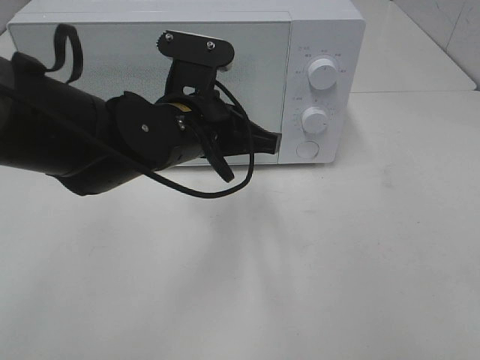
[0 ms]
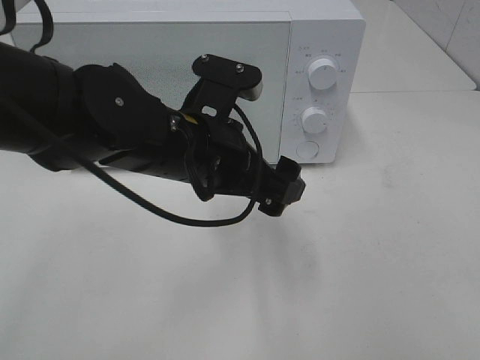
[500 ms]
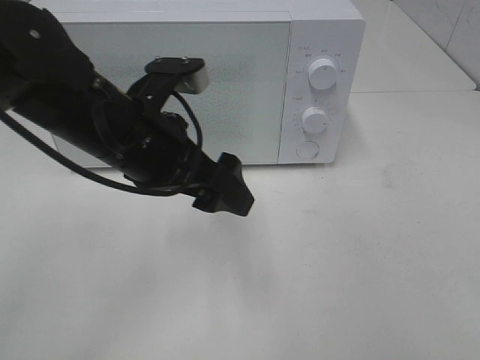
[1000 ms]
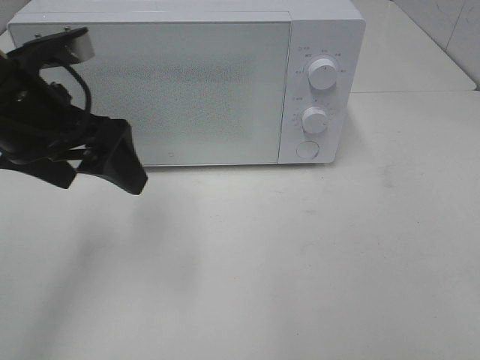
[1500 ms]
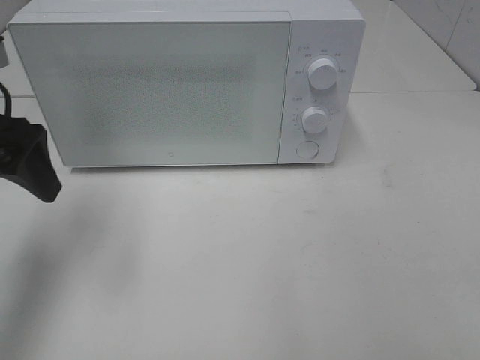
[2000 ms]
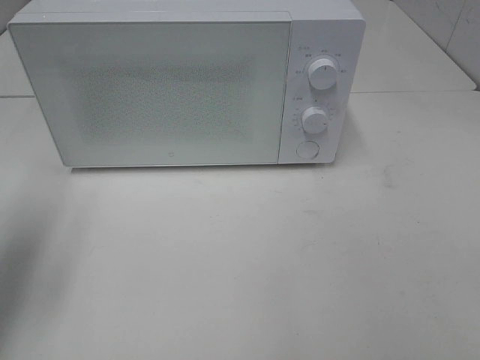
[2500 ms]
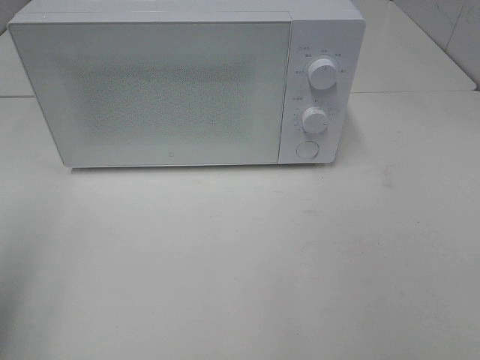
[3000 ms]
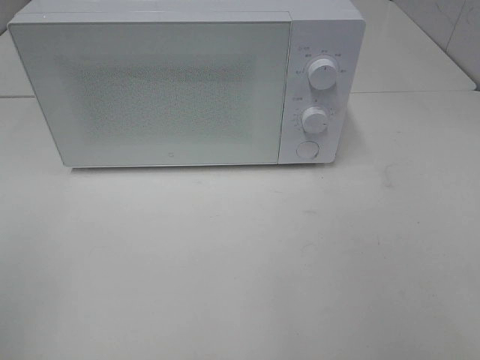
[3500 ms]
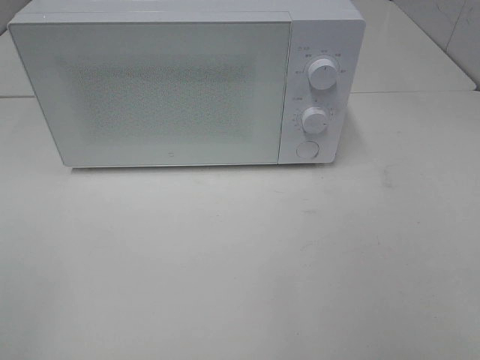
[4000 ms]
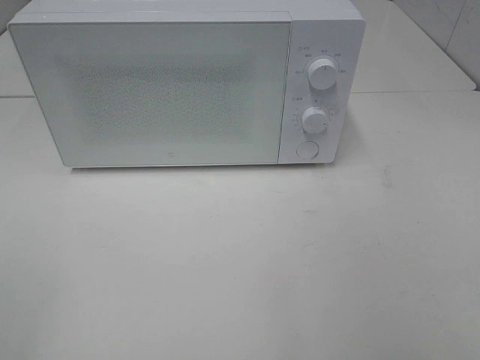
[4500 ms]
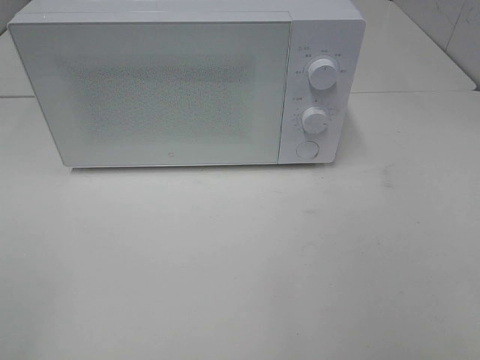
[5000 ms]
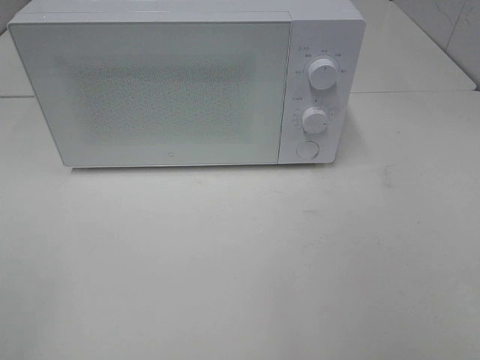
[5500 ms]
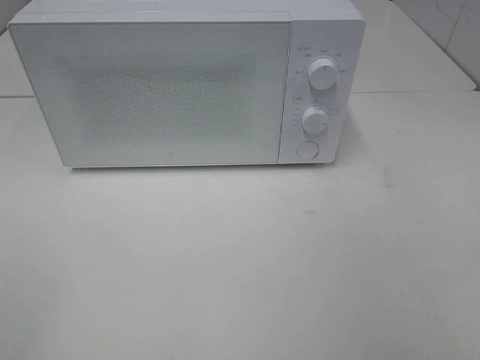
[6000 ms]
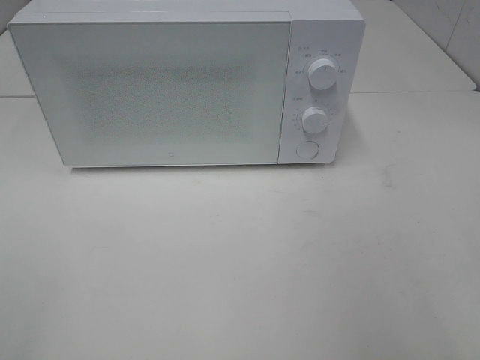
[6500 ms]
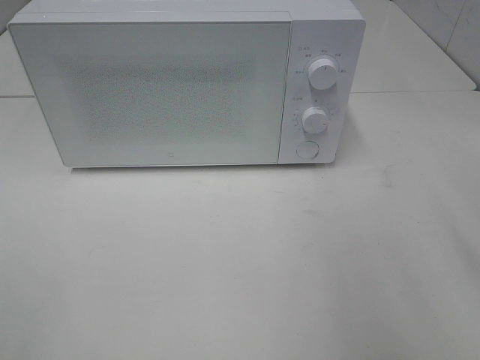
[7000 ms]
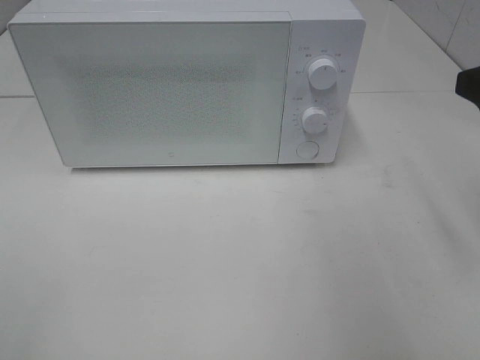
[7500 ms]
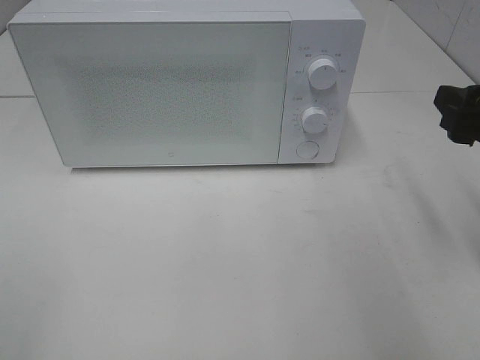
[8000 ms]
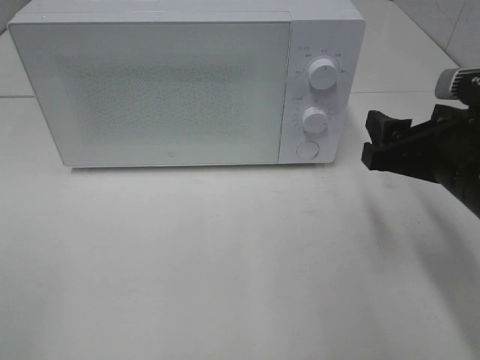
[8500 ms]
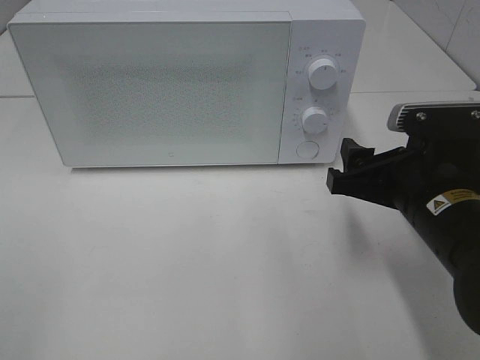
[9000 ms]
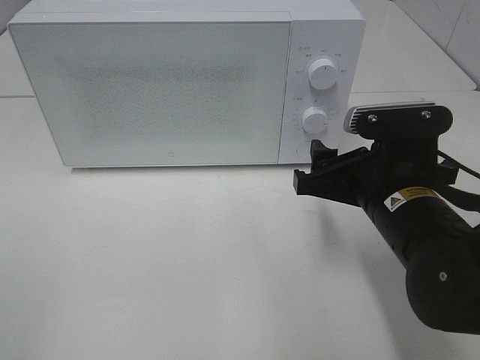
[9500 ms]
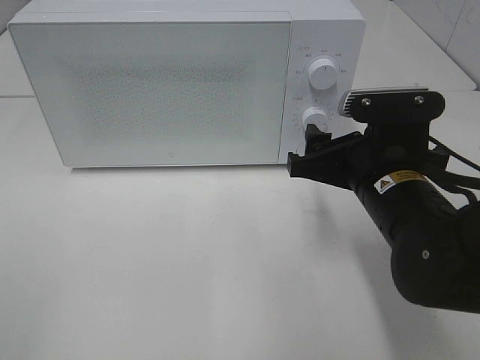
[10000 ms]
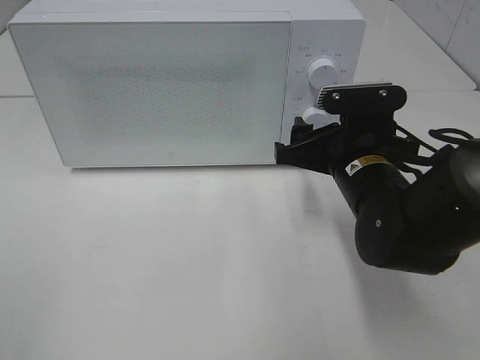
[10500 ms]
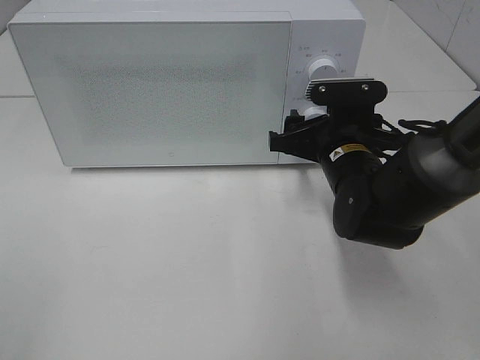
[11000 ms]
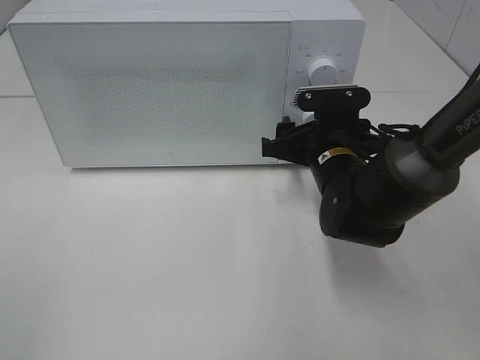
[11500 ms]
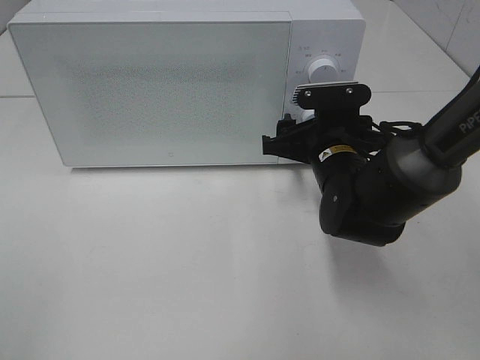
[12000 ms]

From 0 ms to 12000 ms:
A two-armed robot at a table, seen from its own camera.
Task of the whole recording: Heat the burger.
From 0 ms to 2000 ms: The left gripper shifts about 20 cm to the left, and opens.
From 2000 ms to 4000 ms: The left gripper goes approximately 25 cm backward.
From 6000 ms to 8000 ms: The right gripper is displaced forward by some 20 cm.
From 8000 ms to 10000 ms: The right gripper moves to the left and downward, about 15 cm.
From 10000 ms to 12000 ms: The right gripper travels forward by some 10 cm.

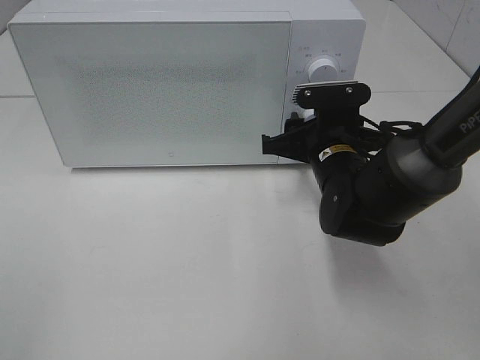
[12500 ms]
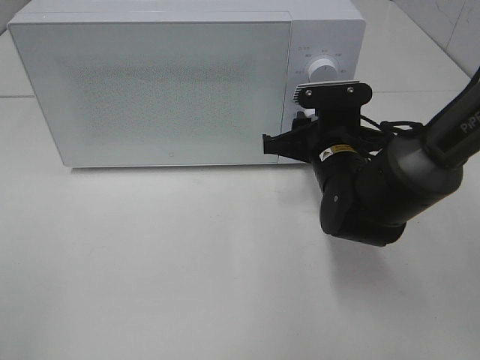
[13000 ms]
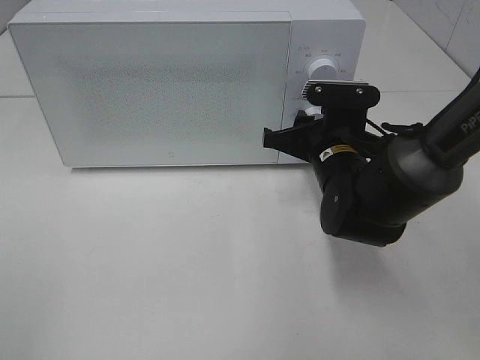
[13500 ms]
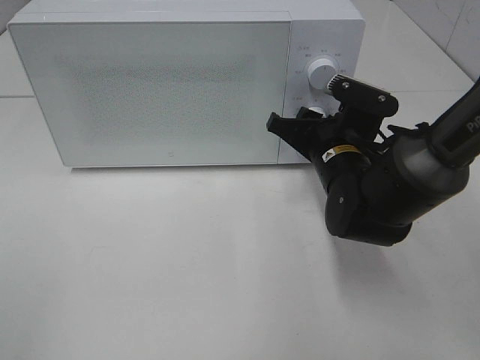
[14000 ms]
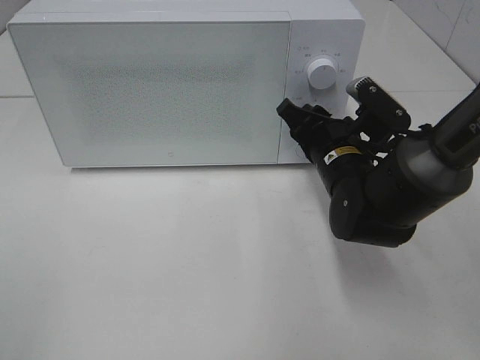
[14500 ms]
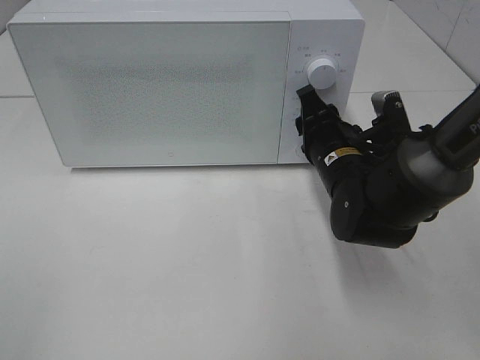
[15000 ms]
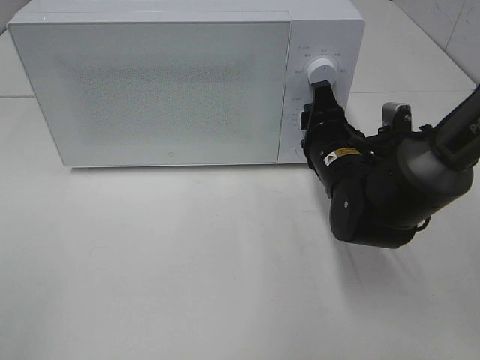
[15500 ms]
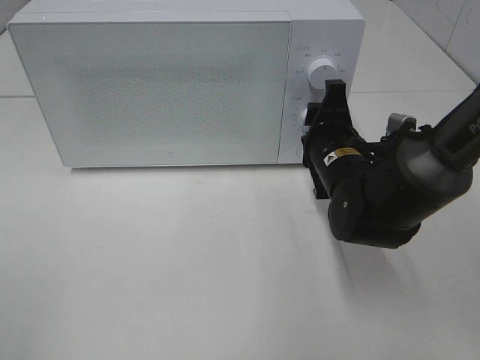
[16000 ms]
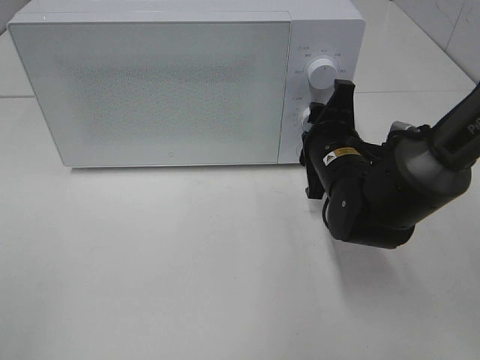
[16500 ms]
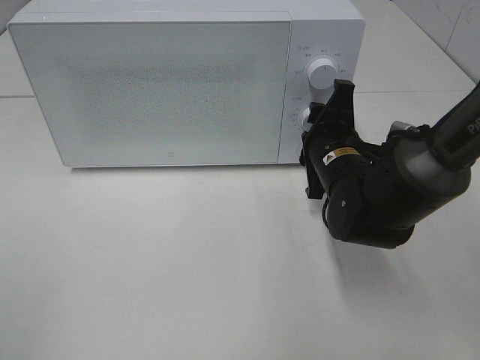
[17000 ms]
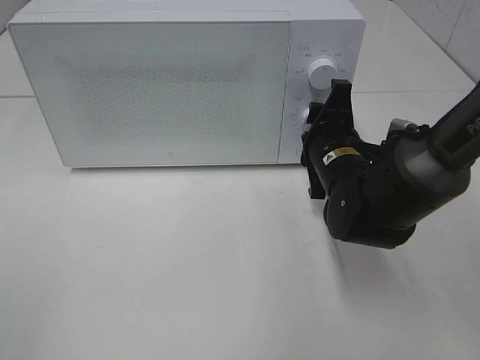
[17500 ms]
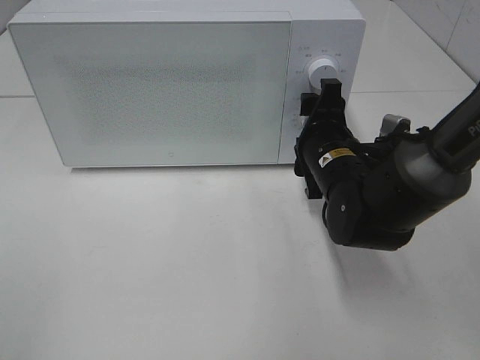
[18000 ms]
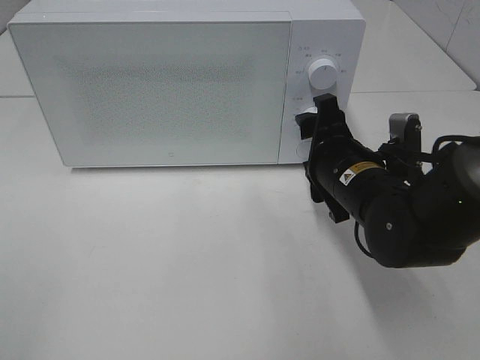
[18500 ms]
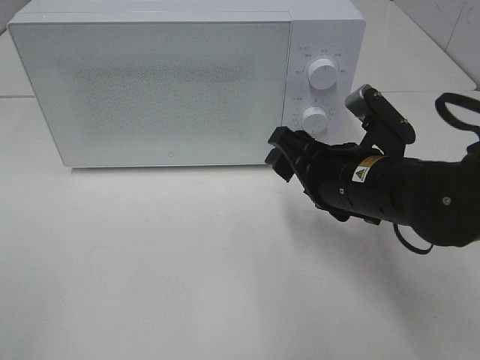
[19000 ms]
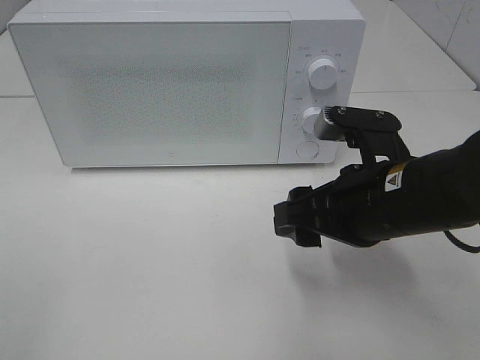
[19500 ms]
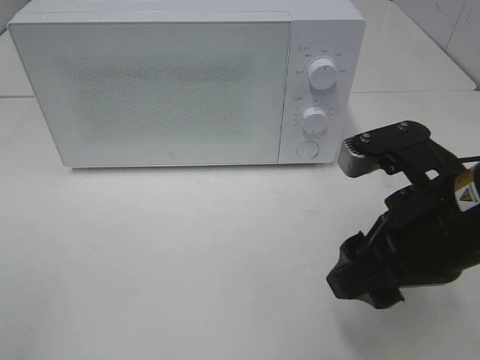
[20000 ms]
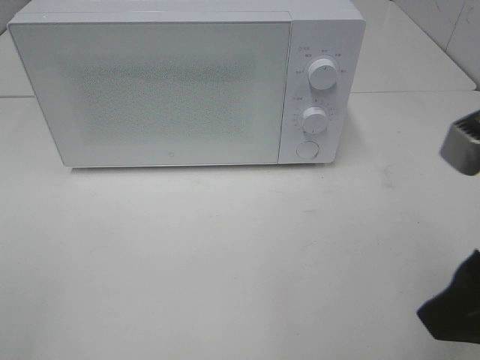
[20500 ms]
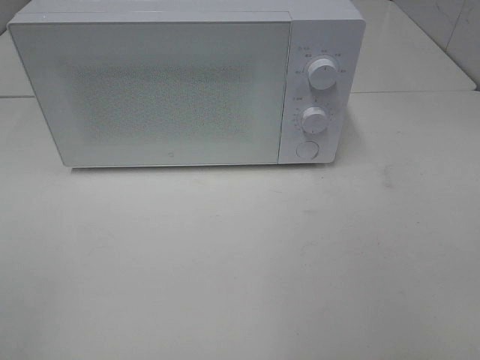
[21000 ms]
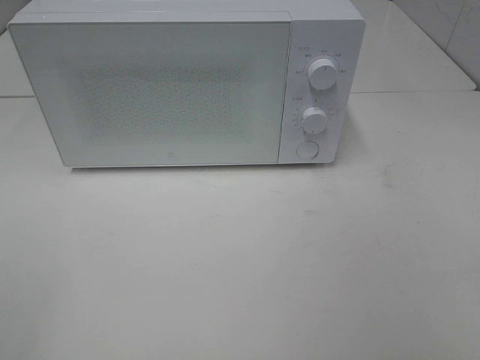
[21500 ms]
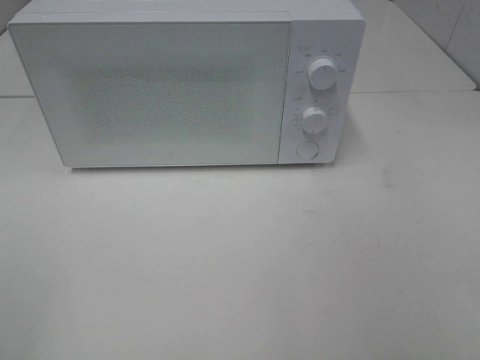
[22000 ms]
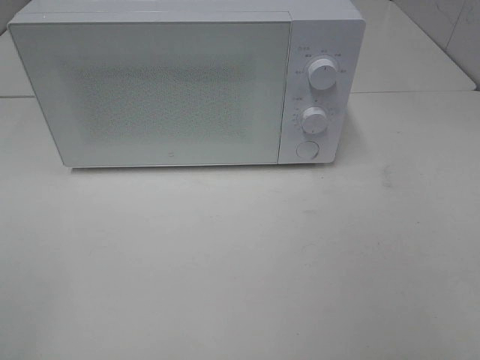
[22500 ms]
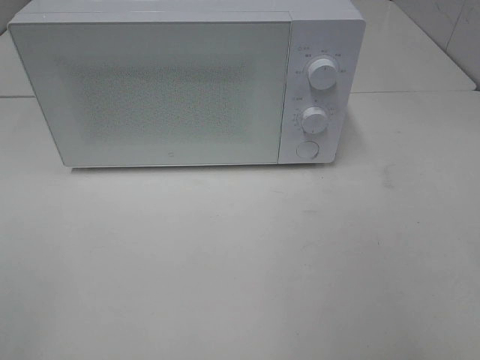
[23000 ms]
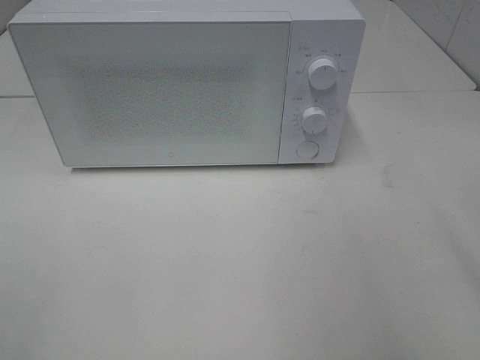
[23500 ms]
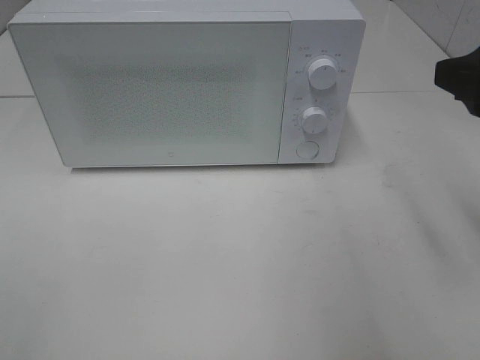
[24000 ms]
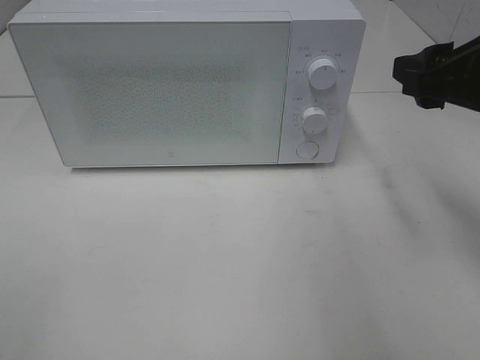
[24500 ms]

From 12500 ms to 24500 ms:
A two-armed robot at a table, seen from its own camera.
Task of the whole recording: Heat the burger.
Step, from 12500 ms to 18000 ms: Right hand: twist timer button.
From 18500 ms to 20500 ms: The right gripper goes roughly 20 cm backward and upward.
From 20500 ms to 22500 ms: The right gripper travels backward and to the right by roughly 15 cm.
From 22500 ms to 24500 ms: The right gripper moves forward, about 25 cm.

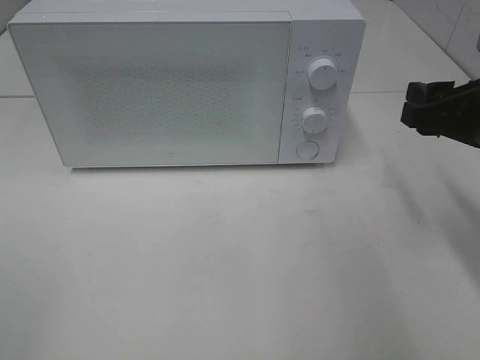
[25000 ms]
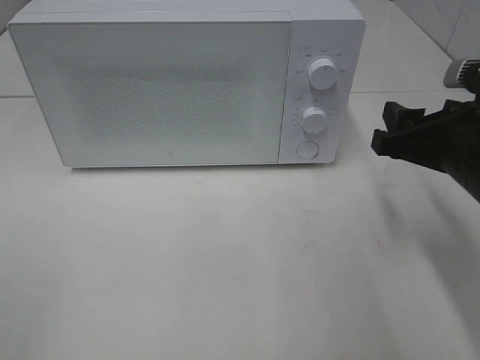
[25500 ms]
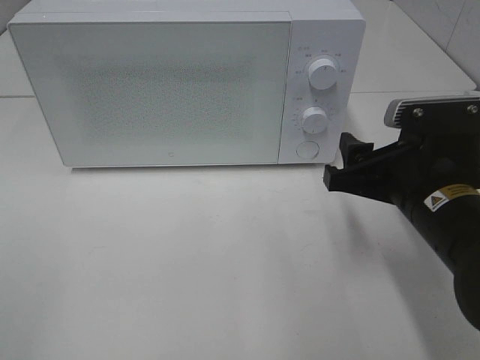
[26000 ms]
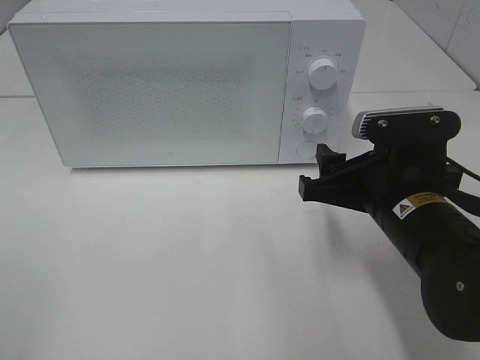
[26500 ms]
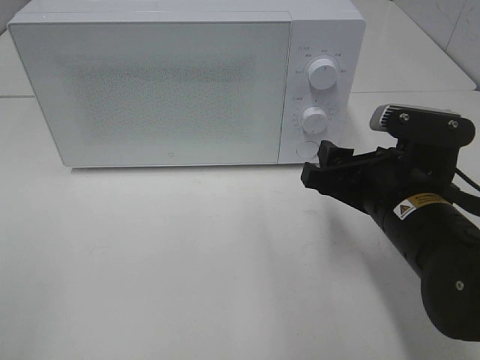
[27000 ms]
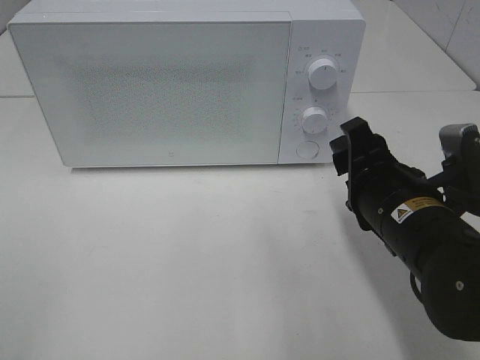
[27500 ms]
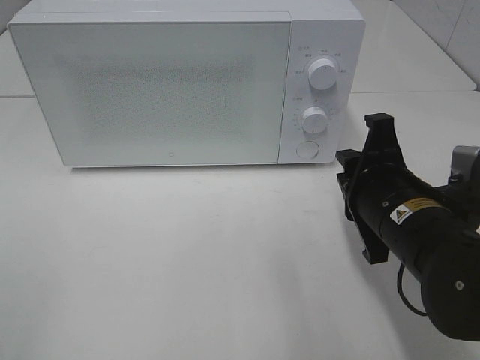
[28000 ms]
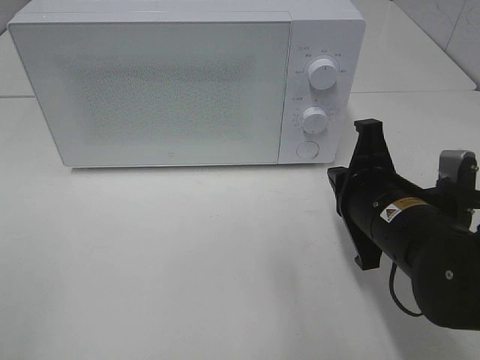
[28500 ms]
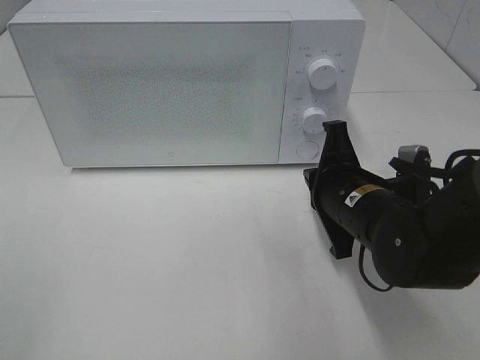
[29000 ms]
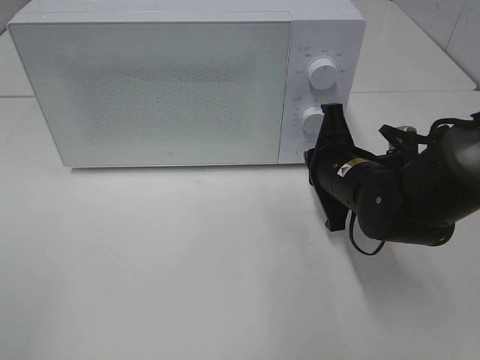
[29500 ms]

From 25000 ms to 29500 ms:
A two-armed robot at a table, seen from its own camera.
Task of the whole recording: Heat the burger.
From 25000 ms to 27000 ms: The right gripper travels to the left and downward by approximately 10 cm.
From 27000 ms to 29500 ms: The right gripper shifts roughly 10 cm forward, and closes up.
